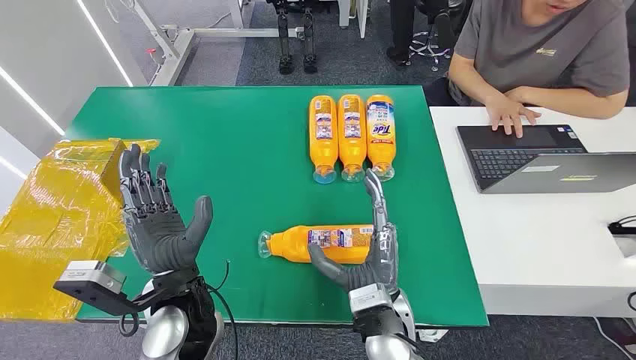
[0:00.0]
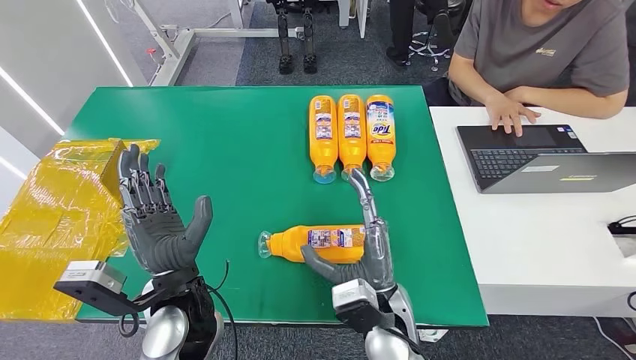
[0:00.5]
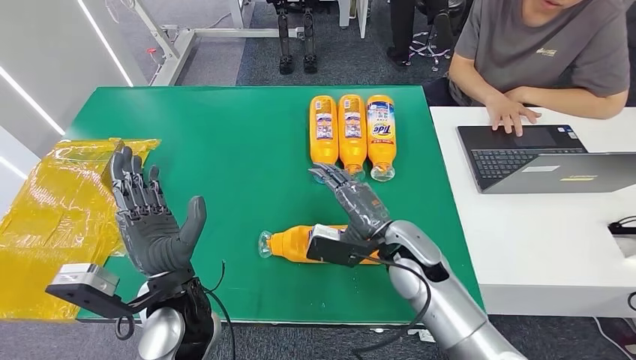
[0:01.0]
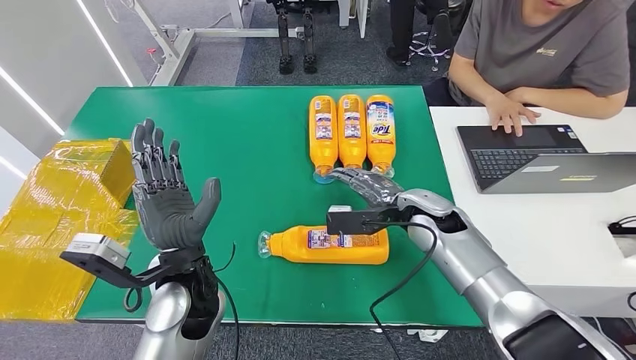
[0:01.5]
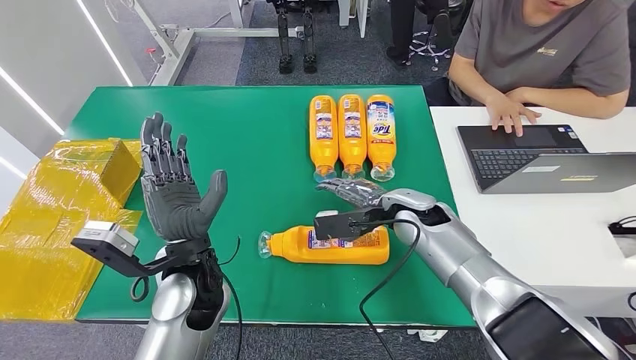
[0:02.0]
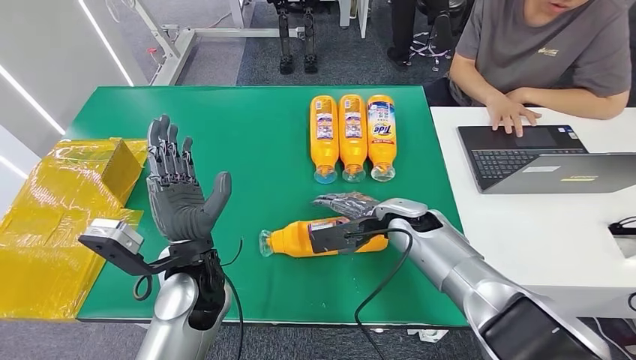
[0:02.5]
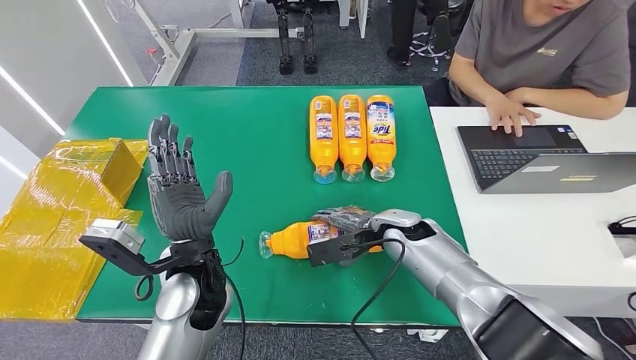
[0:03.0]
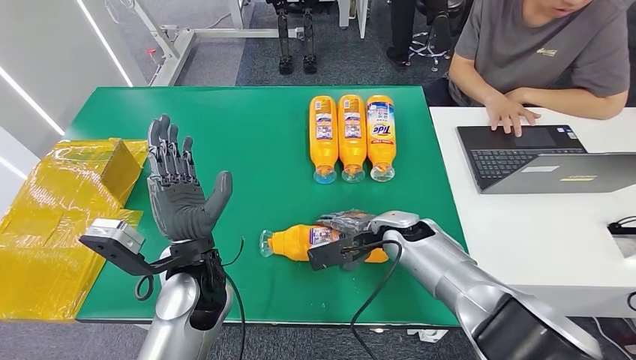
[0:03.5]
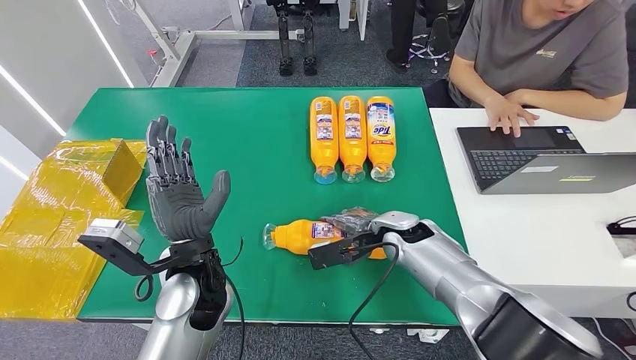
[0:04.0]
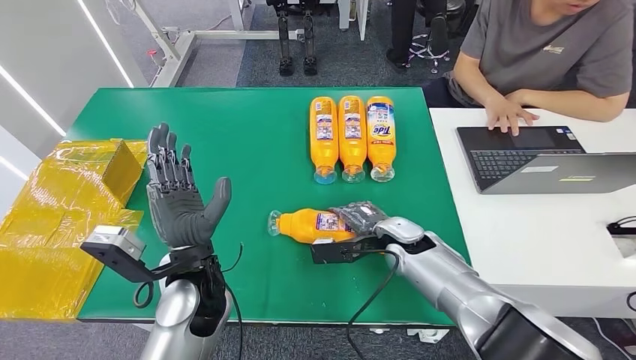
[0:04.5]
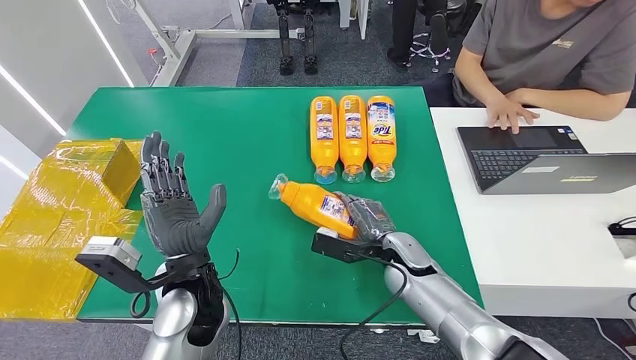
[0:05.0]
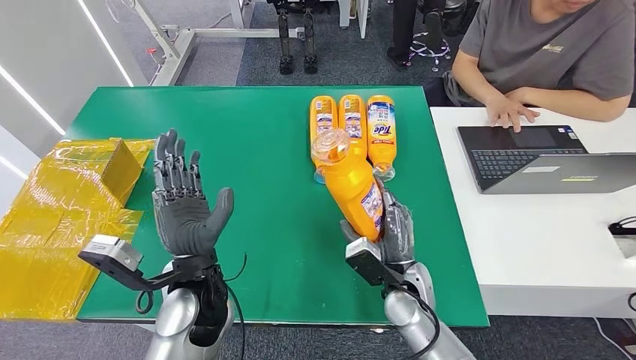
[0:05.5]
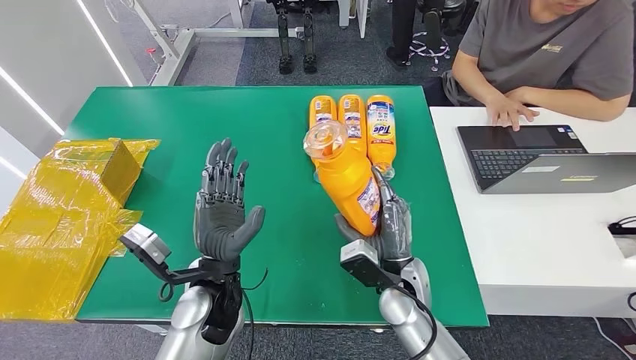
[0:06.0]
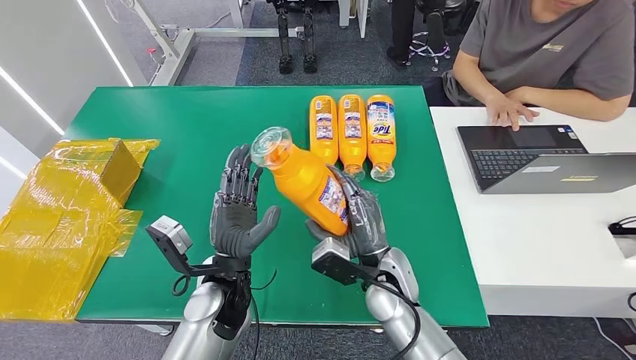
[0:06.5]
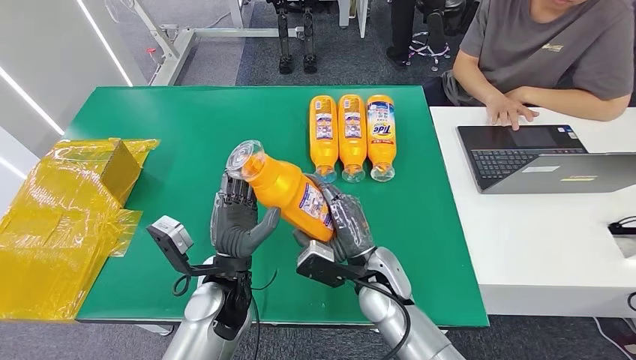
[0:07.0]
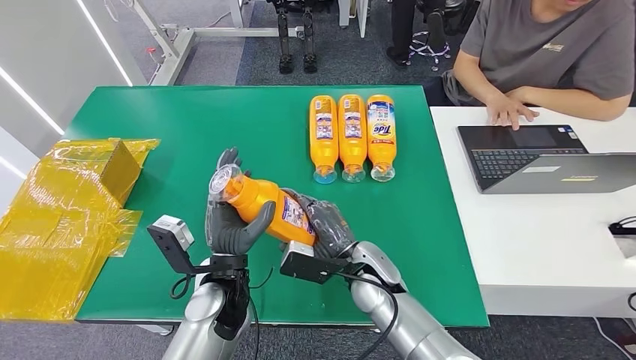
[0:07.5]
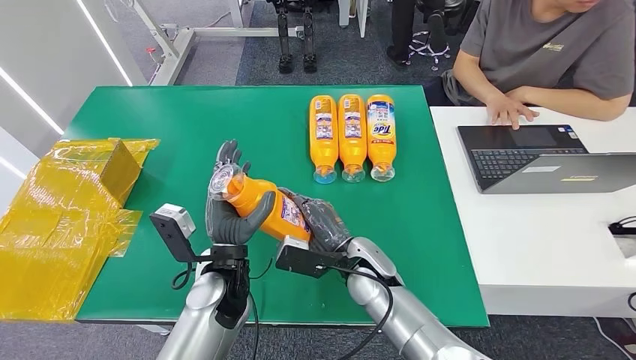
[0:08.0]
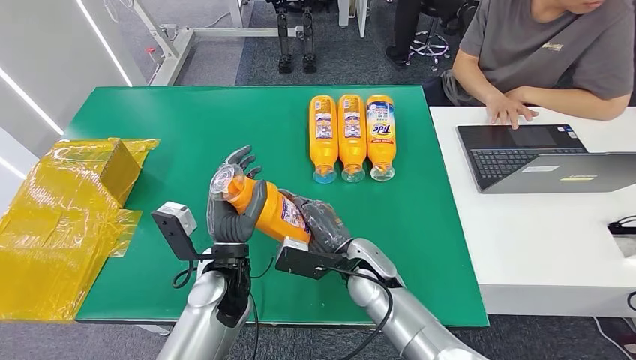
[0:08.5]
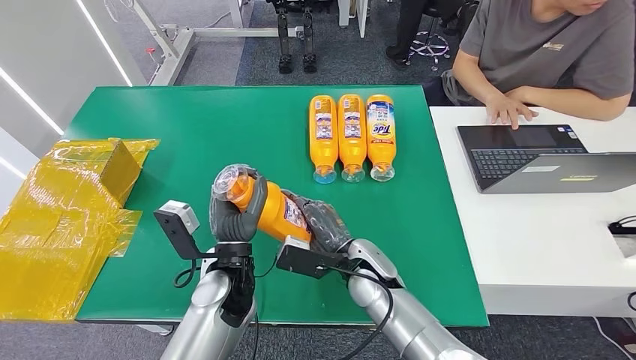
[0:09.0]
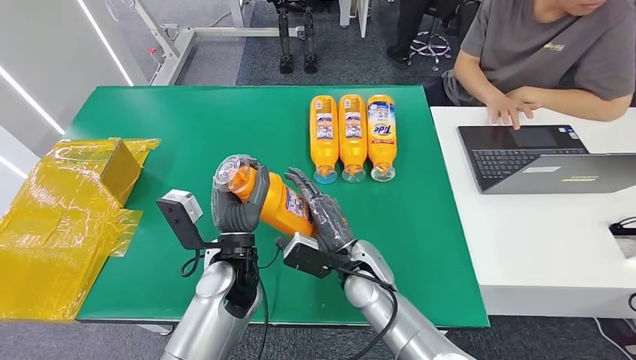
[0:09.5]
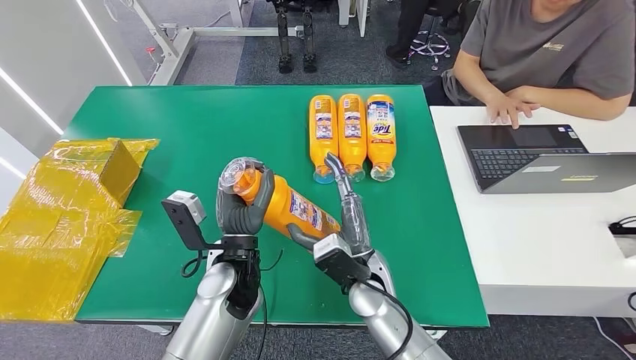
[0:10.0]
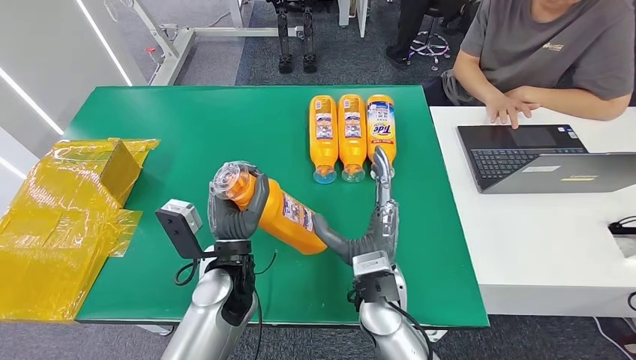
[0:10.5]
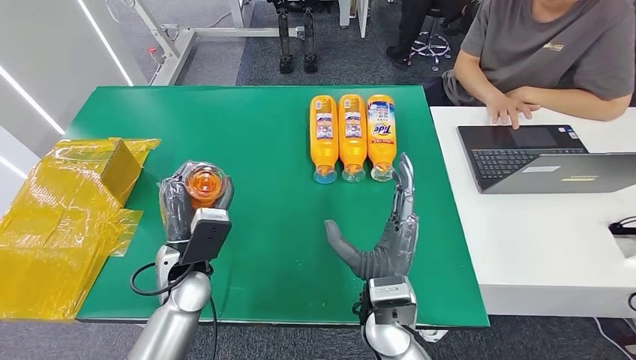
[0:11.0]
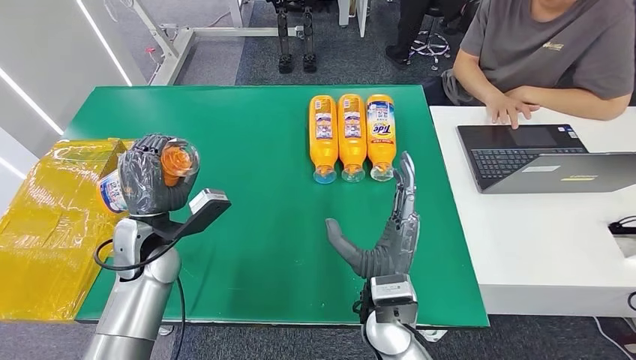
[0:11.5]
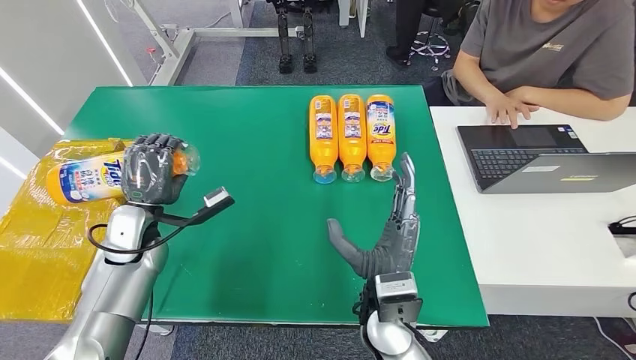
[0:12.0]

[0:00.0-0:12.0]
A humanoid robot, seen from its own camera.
Step, 0:00.0 to 0:06.5: Pick up the bottle from the table.
0:02.0 to 0:04.0: The right hand shifts by some 5 cm.
0:06.0 to 0:08.0: The right hand shifts approximately 5 cm to the left.
0:10.0 to 0:12.0: The right hand moves backward, approximately 5 cm. The left hand moves to the left, approximately 20 cm.

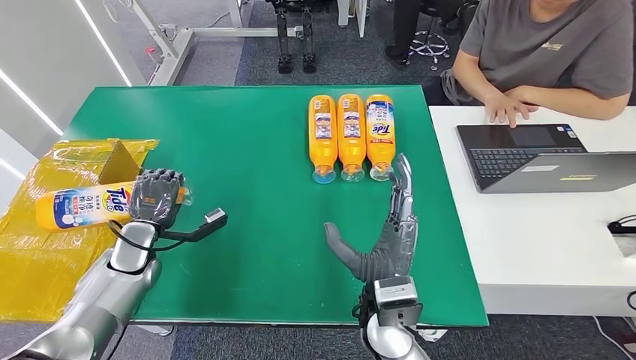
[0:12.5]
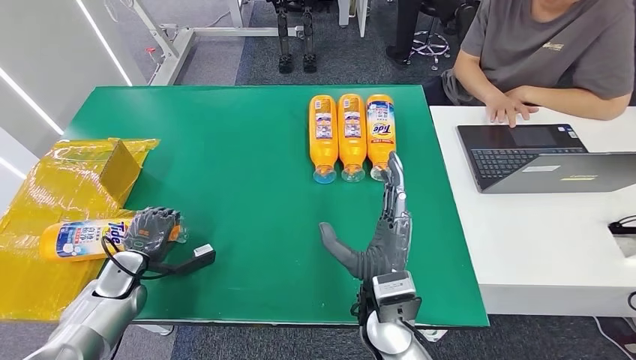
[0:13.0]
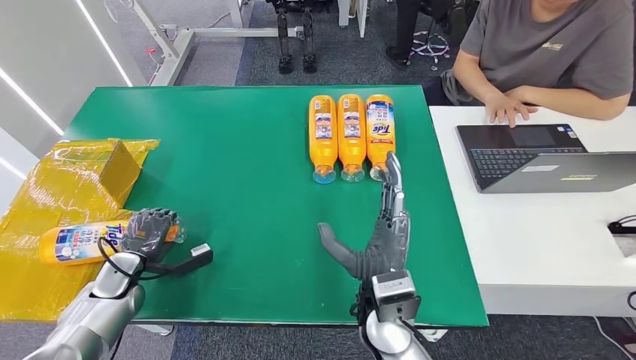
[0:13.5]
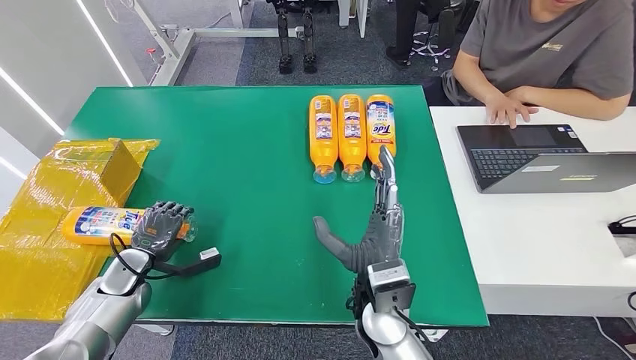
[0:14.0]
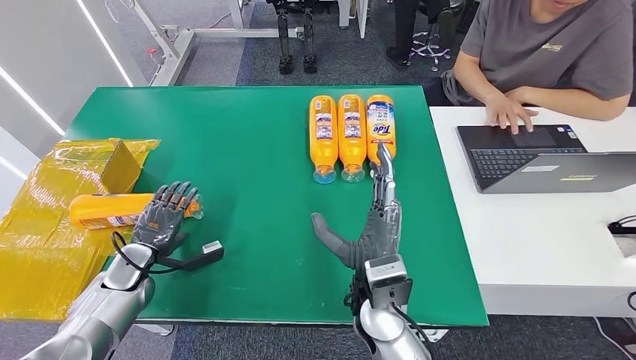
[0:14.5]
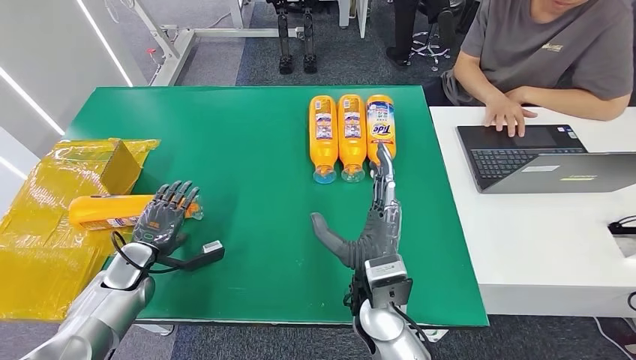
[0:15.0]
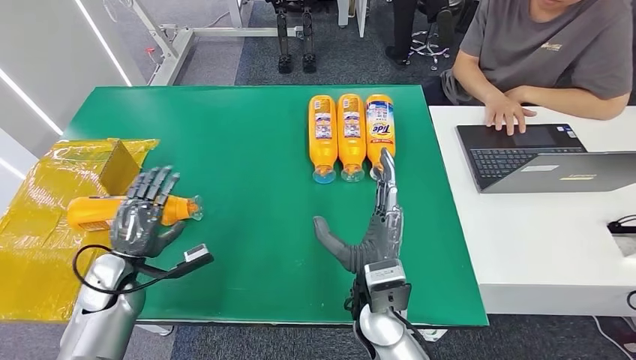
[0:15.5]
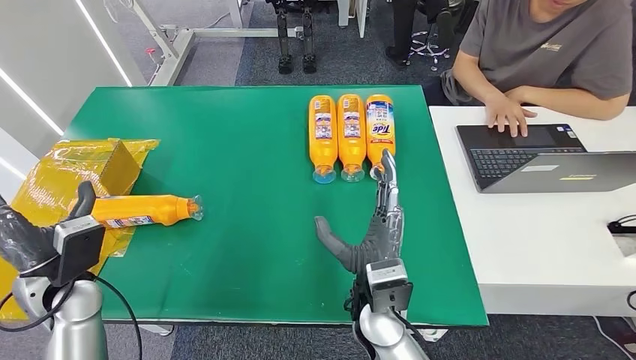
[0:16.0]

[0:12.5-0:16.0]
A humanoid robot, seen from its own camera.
Step, 0:12.5 to 0:16.0: Turn the bottle to the front side.
0:12.5 to 0:14.5: The left hand shifts by approximately 5 cm.
0:14.5 to 0:16.0: The left hand goes roughly 15 cm upward and backward.
